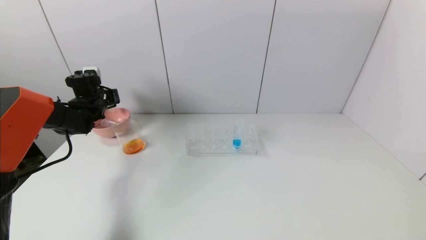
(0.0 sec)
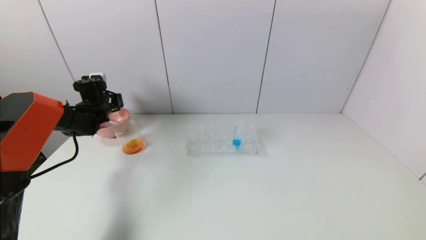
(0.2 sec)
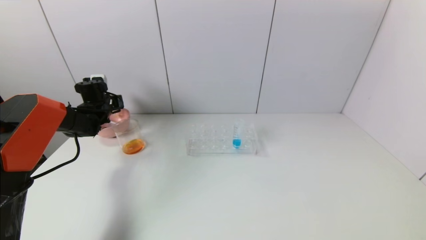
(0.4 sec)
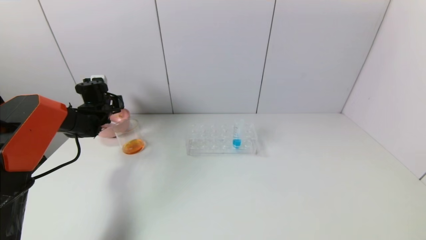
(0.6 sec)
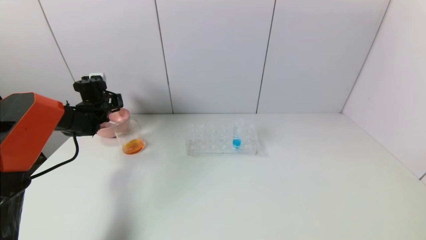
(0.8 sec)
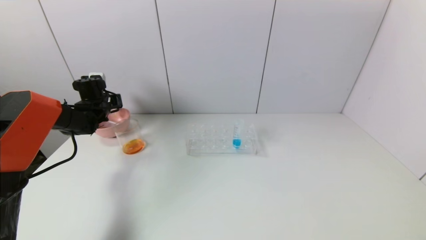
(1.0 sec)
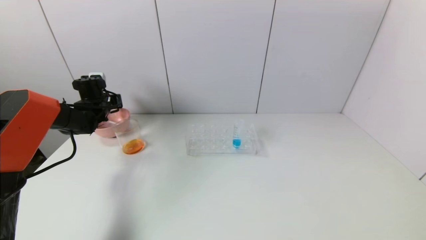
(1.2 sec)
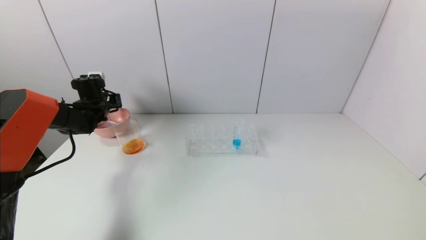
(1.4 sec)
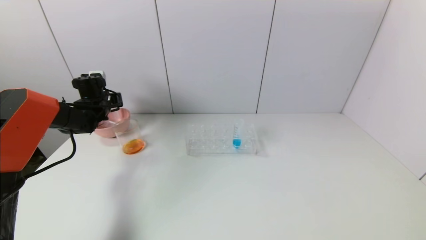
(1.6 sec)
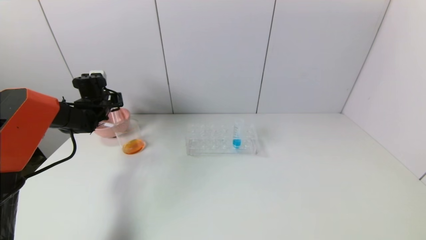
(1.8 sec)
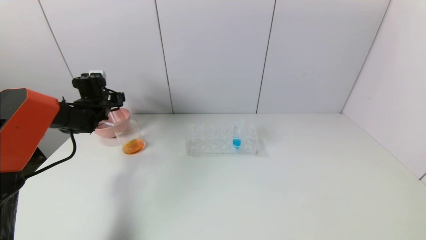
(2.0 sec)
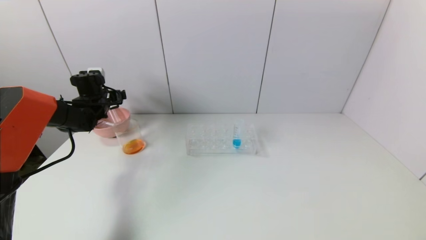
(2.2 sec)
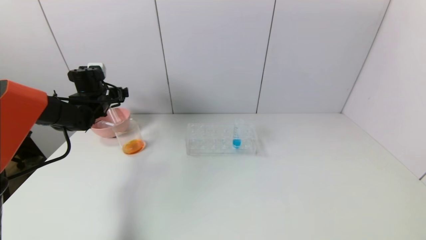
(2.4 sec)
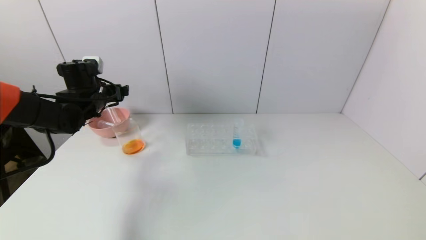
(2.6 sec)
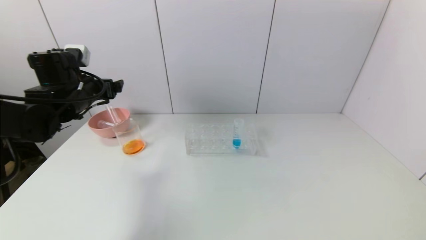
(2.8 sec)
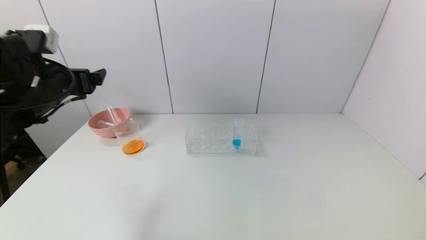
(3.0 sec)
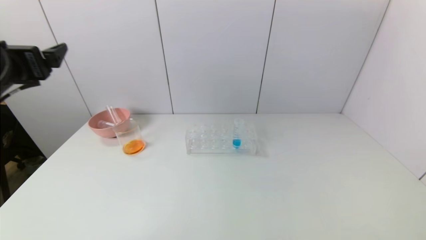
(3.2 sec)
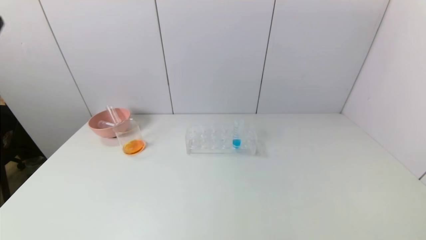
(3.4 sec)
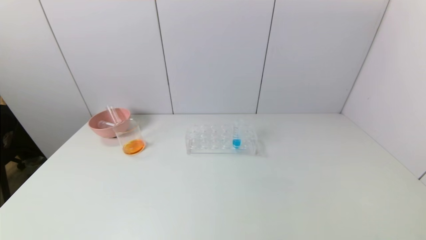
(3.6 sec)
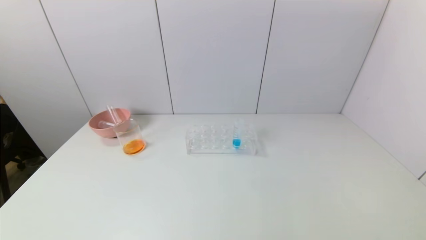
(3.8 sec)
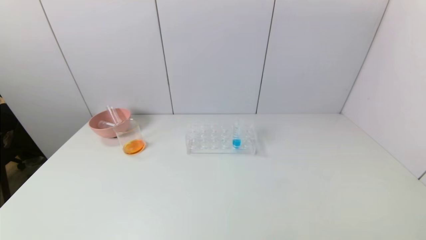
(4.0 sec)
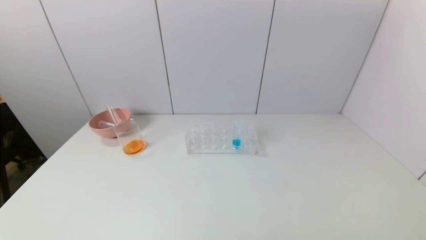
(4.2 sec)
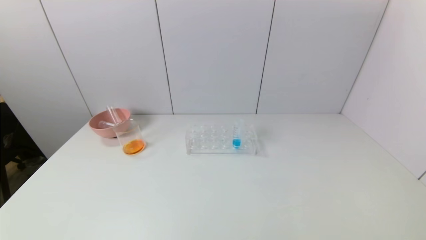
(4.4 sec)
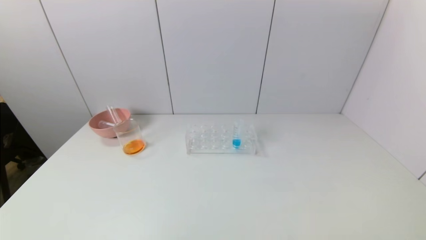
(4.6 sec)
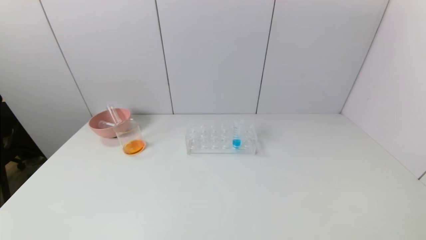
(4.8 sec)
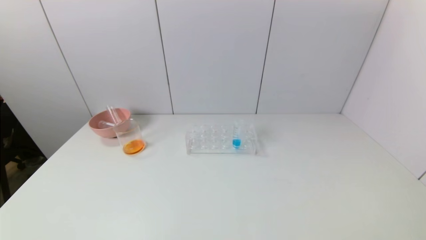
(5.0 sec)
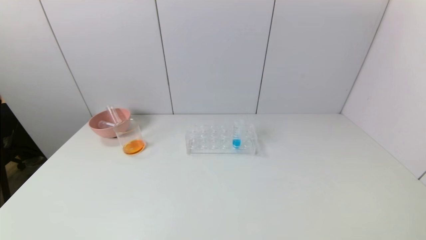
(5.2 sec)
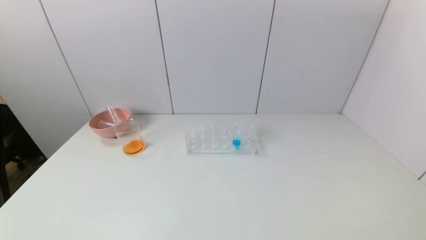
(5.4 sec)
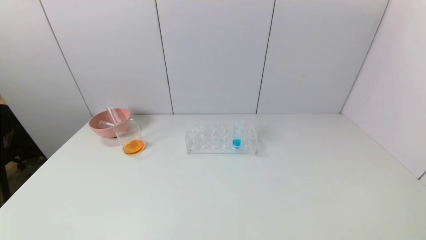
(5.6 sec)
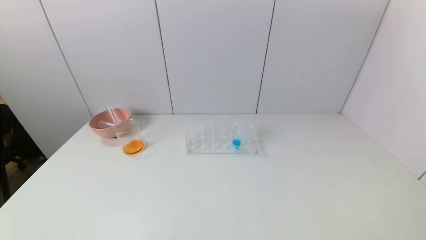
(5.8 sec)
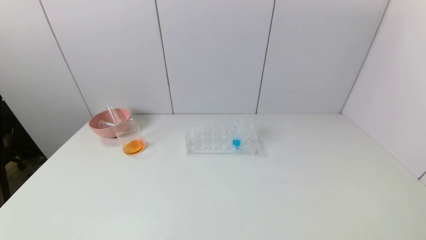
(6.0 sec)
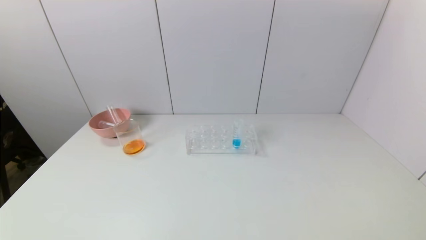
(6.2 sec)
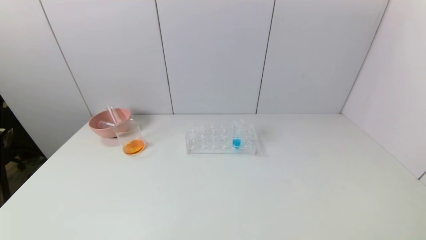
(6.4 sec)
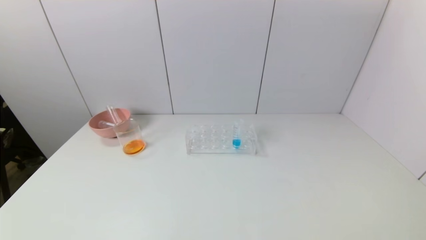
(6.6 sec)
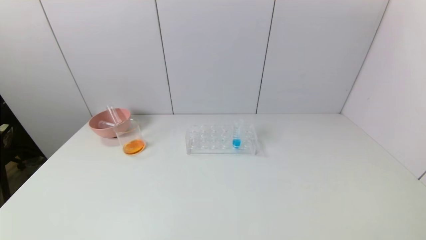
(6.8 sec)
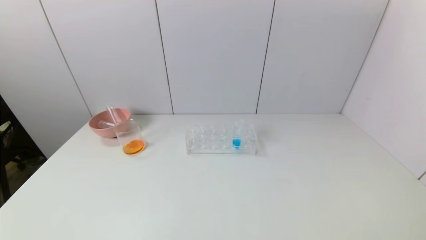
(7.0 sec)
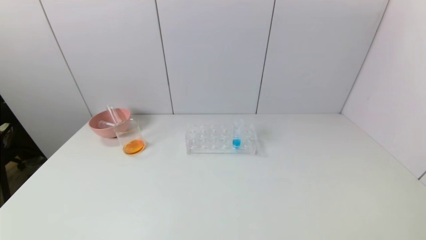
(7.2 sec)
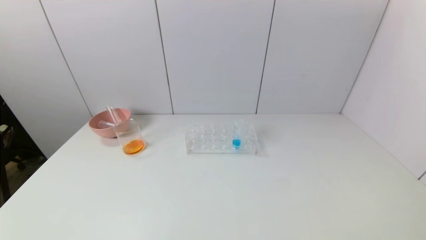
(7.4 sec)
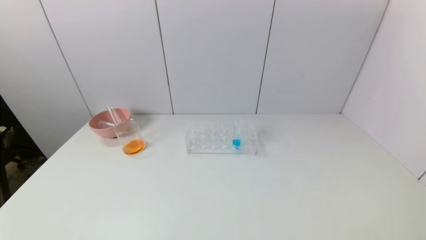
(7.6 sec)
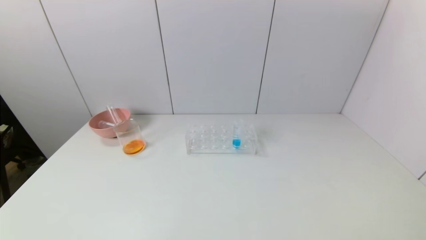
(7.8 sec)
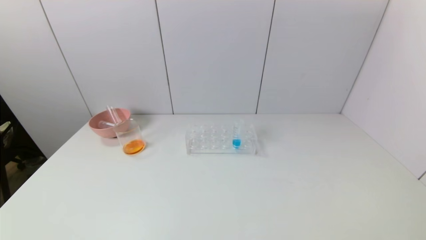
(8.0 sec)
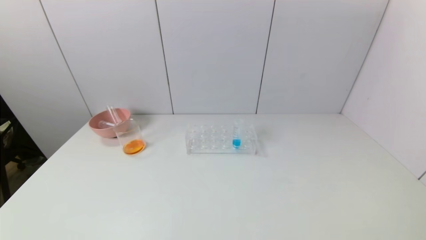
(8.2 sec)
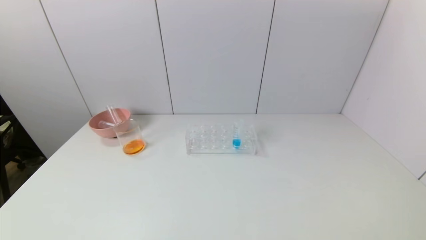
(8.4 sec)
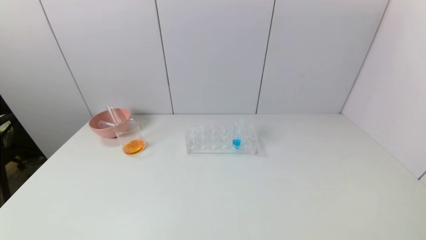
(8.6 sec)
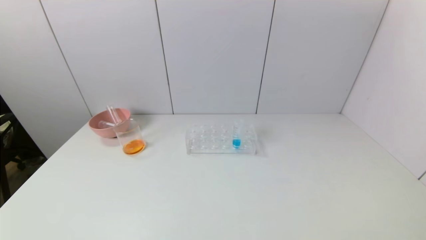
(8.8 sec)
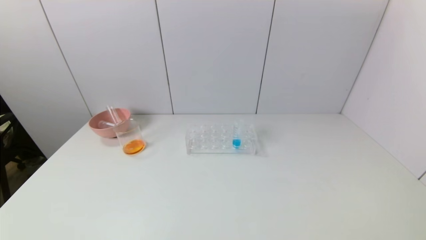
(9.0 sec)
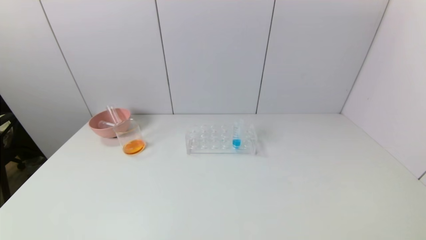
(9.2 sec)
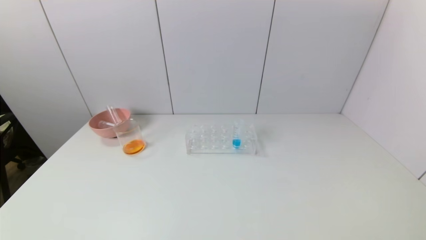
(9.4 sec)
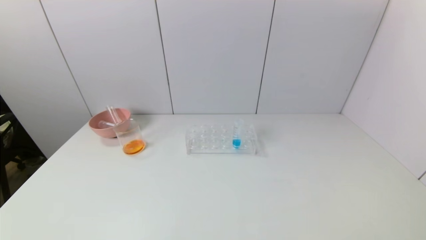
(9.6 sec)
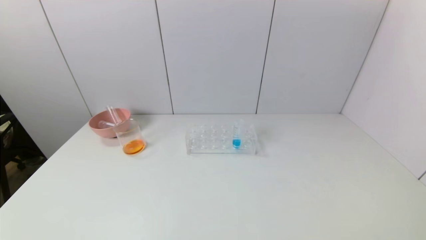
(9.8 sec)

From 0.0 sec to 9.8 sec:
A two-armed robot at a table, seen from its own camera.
Task of the whole recording: pick up the test tube with yellow pigment and the test tube with red pigment by grippers and pour them into the beaker.
From 0.0 sec to 1.4 sec: There are only small adjustments of the grippers.
From 1.4 sec to 2.8 sec: The left gripper heads backward, upward and to the right, covering roughly 20 cm, and opens.
From 2.8 sec to 4.2 sec: The left gripper moves backward, roughly 40 cm.
From 5.6 sec to 9.8 sec: Neither gripper changes place.

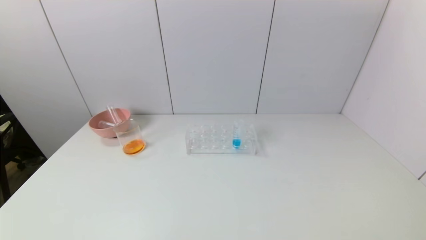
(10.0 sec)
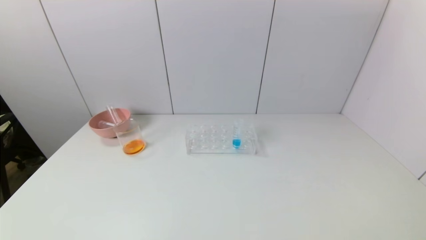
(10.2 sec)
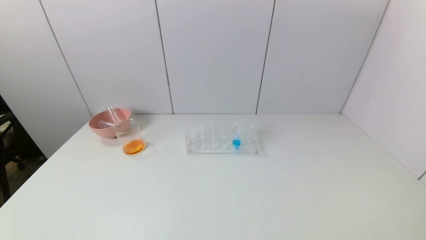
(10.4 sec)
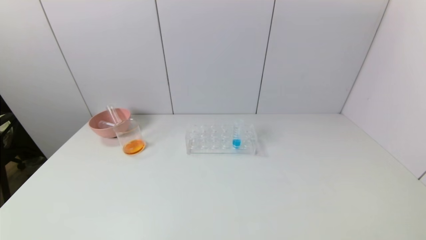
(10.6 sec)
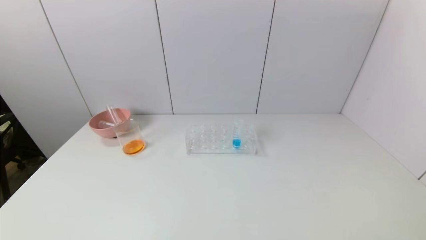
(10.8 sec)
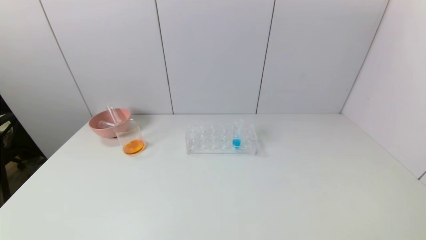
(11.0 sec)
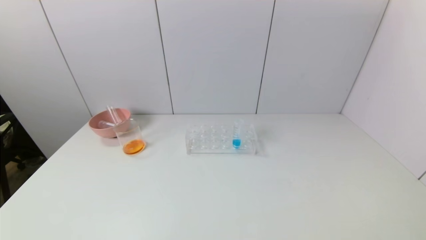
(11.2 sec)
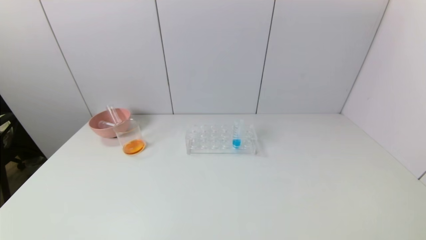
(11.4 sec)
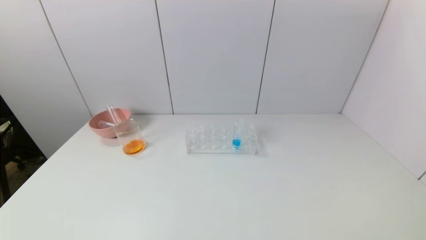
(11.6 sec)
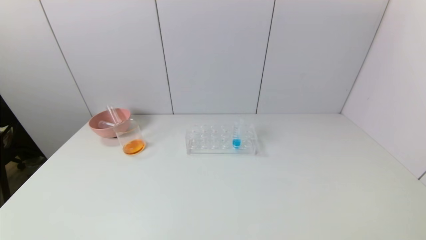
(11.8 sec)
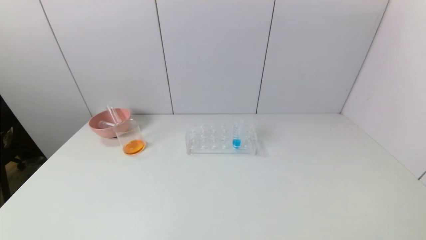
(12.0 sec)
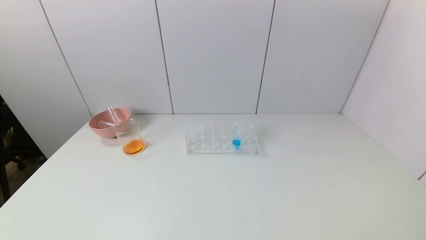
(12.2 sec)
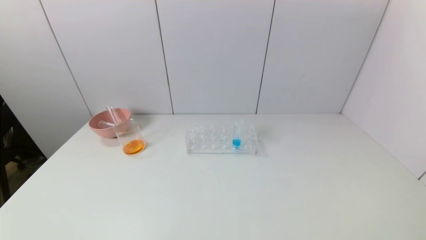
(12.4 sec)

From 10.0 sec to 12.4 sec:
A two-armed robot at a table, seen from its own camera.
Task of the whole recording: pick up the test tube with yellow pigment and the test tube with red pigment by grippers and pour them into the beaker.
From 10.0 sec to 12.4 sec: Both grippers stay about where they are.
